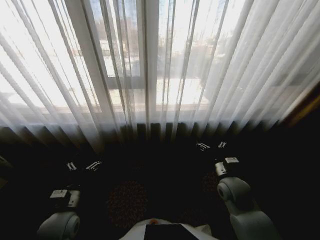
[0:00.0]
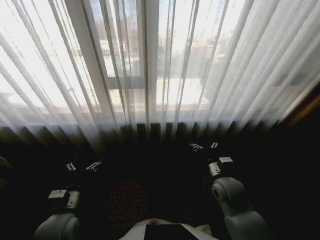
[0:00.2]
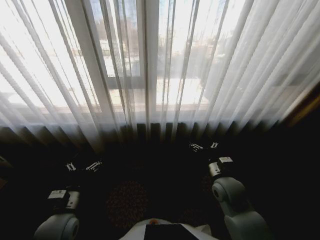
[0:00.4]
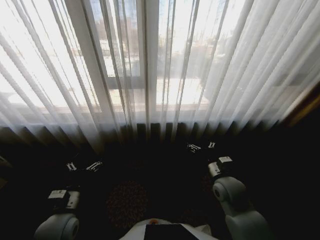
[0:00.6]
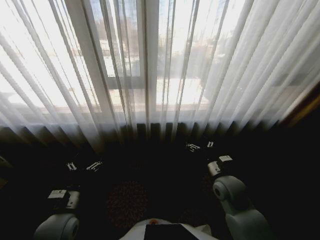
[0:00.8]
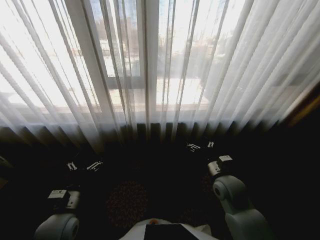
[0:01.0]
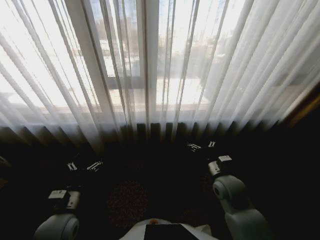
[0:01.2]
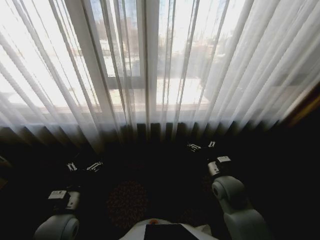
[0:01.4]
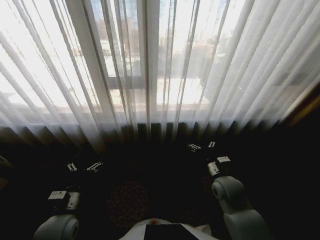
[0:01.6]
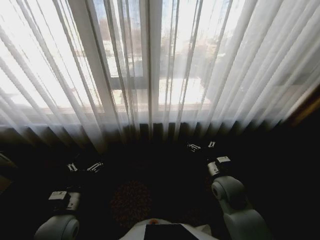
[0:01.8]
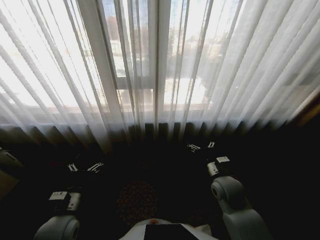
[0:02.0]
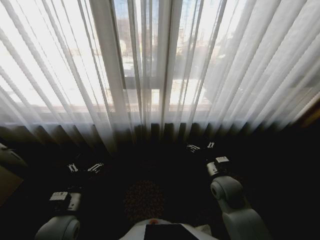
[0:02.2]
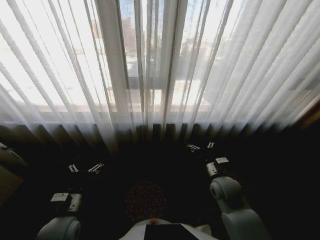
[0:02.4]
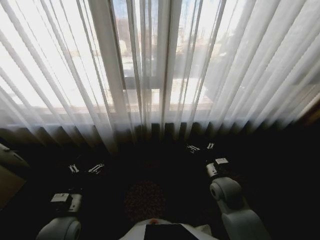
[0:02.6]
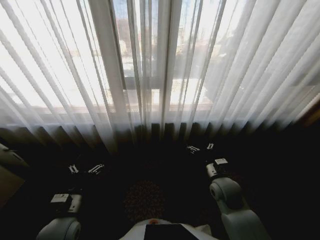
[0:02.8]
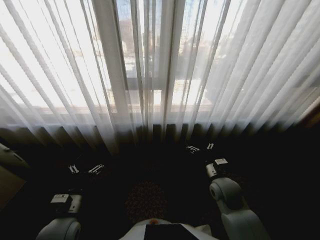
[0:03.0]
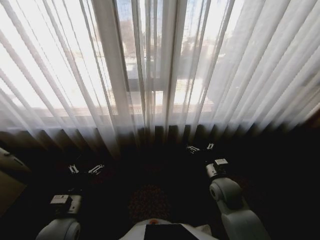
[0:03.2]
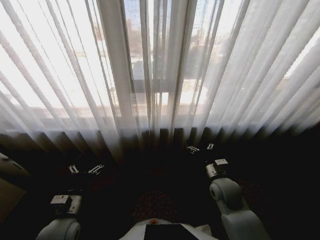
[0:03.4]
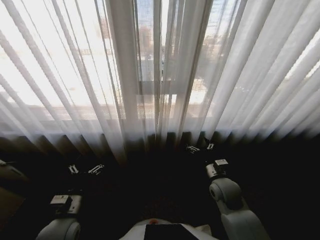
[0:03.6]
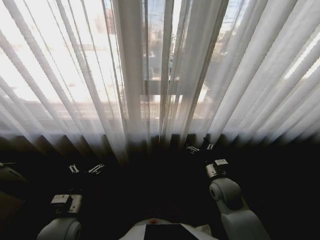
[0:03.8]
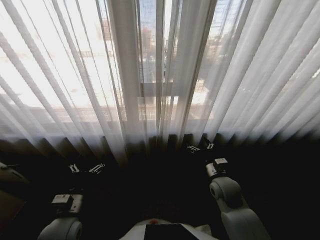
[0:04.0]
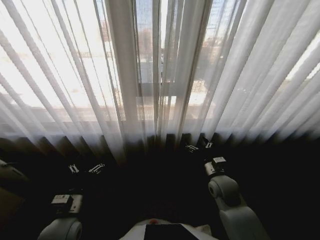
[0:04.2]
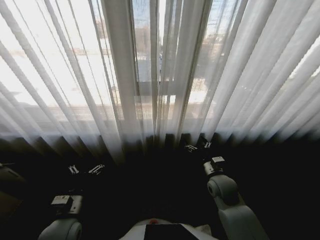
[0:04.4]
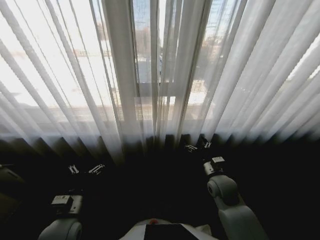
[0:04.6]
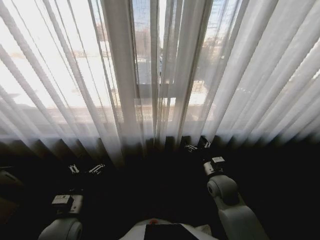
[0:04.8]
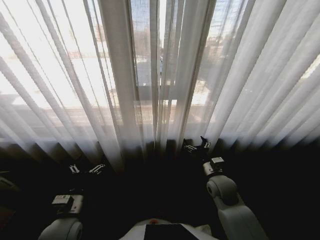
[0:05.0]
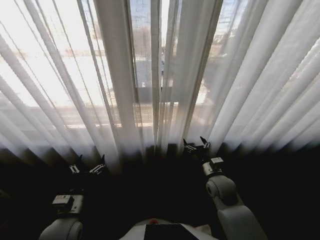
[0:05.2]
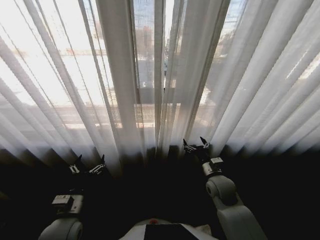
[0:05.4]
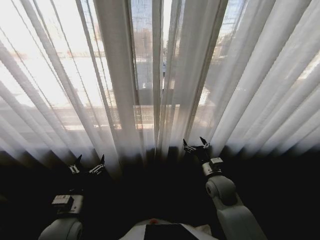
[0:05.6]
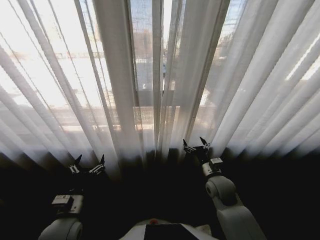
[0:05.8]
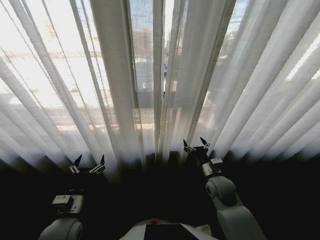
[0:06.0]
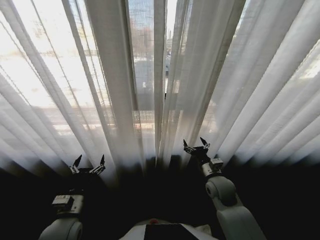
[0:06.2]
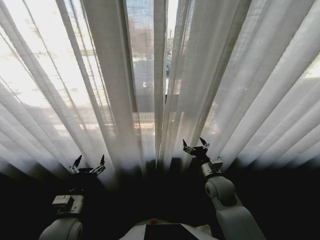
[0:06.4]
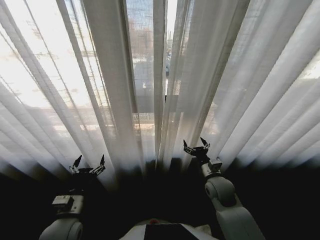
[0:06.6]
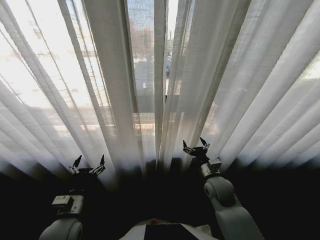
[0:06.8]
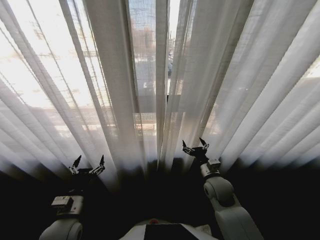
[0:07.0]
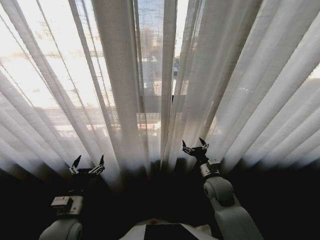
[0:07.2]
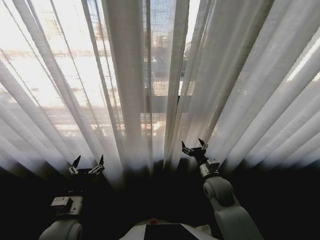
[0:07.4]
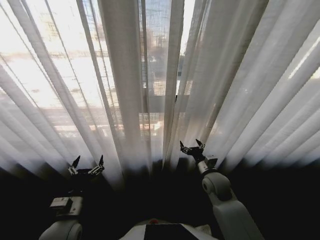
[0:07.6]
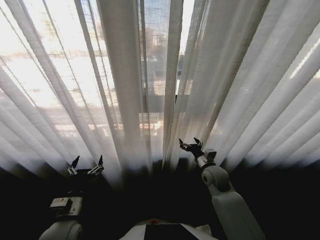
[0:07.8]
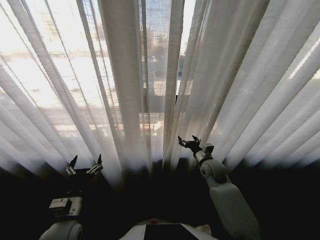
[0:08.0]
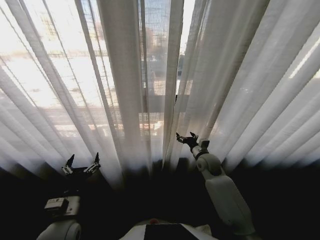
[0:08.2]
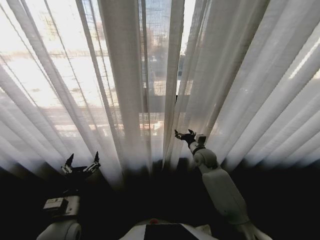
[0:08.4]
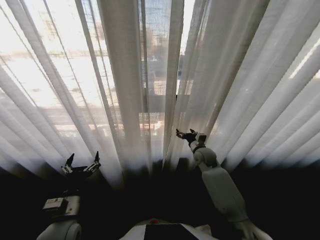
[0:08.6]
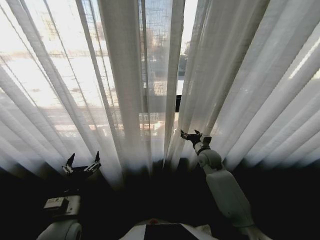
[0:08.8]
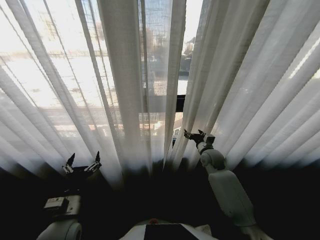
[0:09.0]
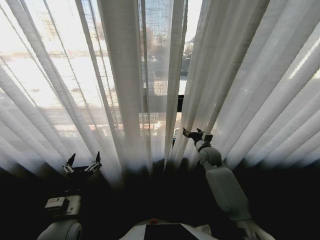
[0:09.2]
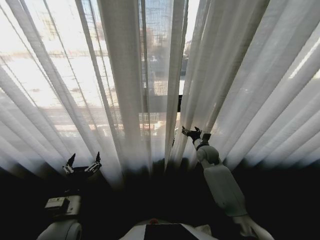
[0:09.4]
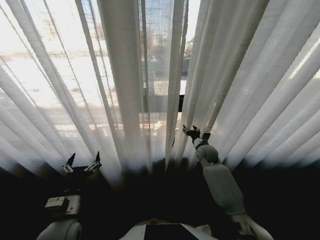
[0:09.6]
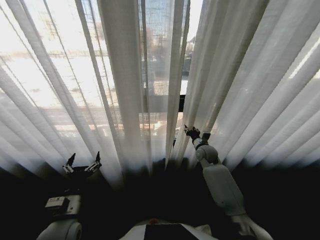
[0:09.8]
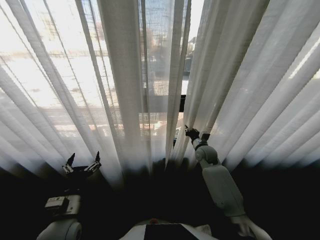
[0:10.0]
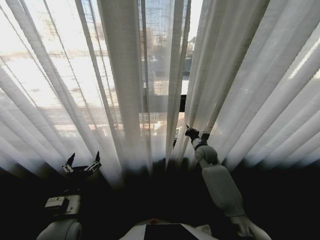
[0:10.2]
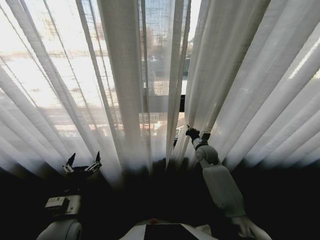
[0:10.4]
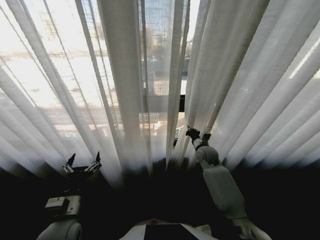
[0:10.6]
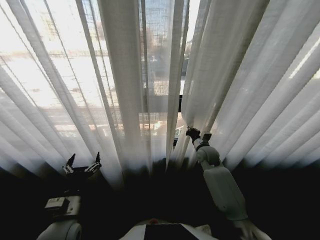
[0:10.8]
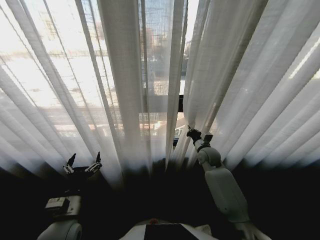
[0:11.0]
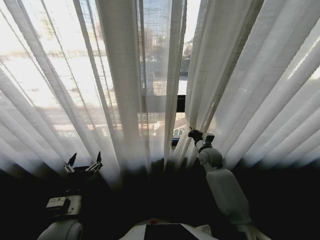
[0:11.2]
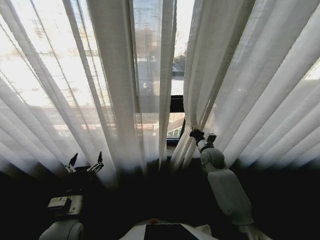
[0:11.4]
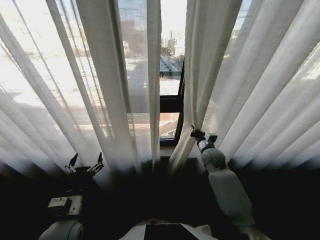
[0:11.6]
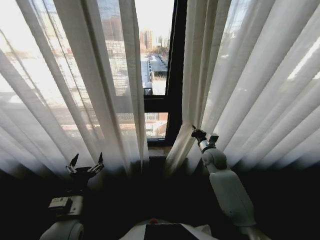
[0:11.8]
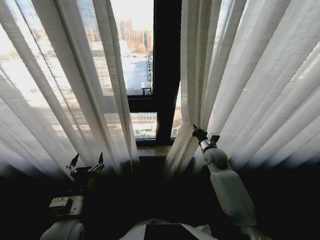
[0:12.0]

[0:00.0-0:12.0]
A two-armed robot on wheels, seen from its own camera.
Task of the whole recording: Open the curtains by pulling them apart, changing their state from closed to fully open.
0:07.6 to 0:09.0: The right gripper goes about 10 cm forward.
0:09.0 to 0:10.4: The right gripper closes its fingers.

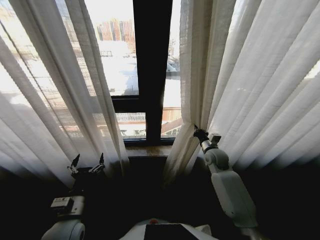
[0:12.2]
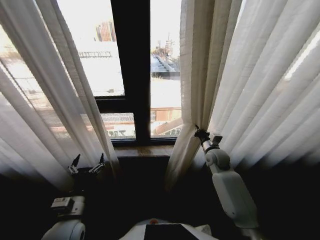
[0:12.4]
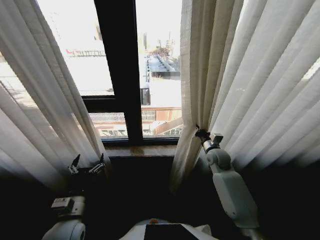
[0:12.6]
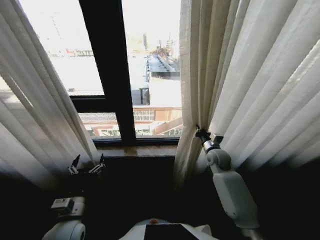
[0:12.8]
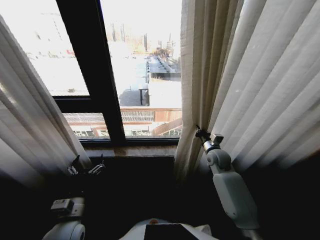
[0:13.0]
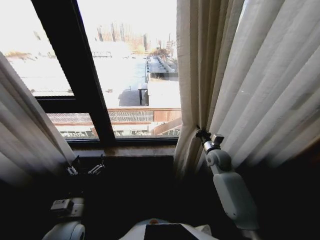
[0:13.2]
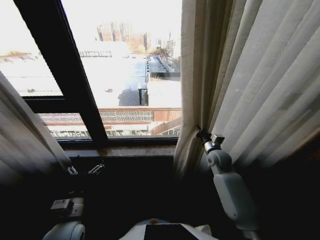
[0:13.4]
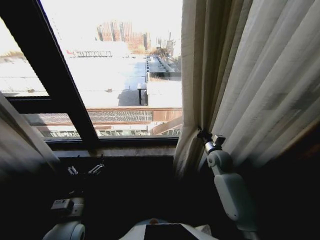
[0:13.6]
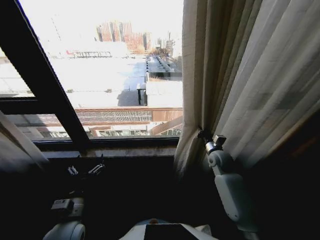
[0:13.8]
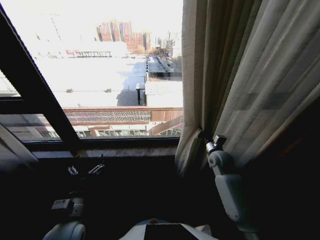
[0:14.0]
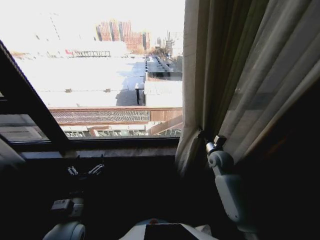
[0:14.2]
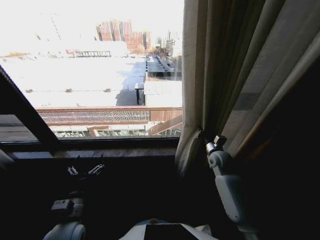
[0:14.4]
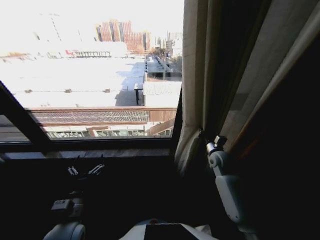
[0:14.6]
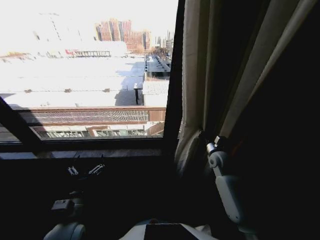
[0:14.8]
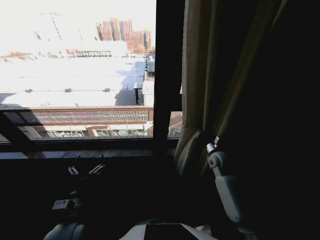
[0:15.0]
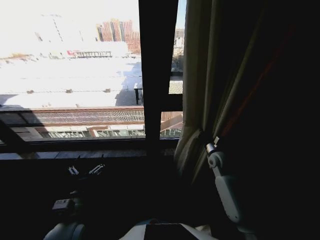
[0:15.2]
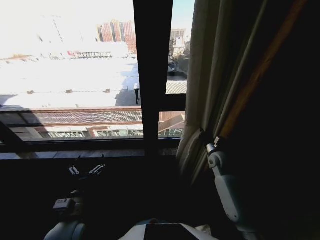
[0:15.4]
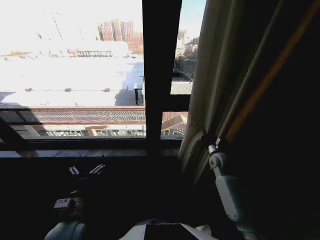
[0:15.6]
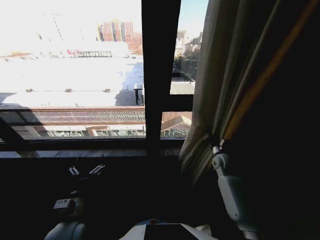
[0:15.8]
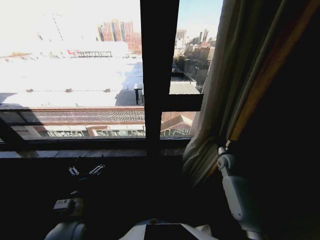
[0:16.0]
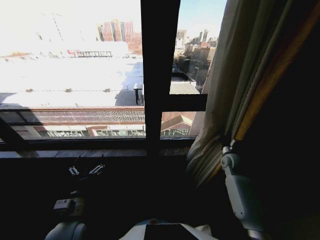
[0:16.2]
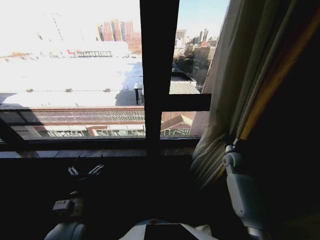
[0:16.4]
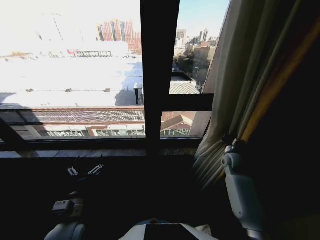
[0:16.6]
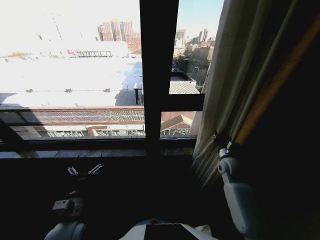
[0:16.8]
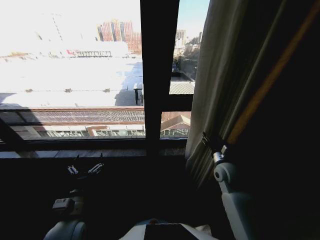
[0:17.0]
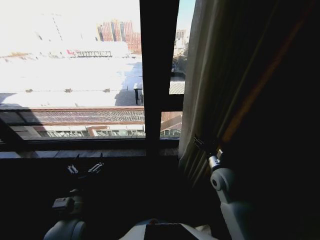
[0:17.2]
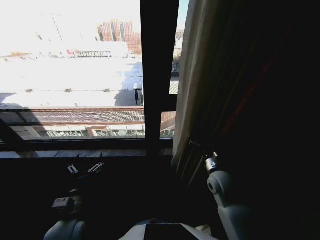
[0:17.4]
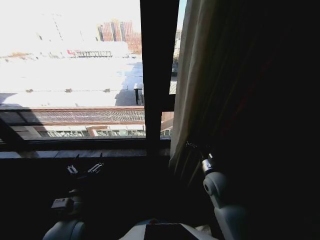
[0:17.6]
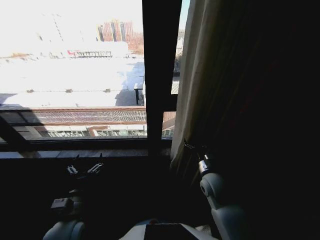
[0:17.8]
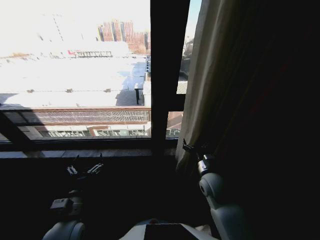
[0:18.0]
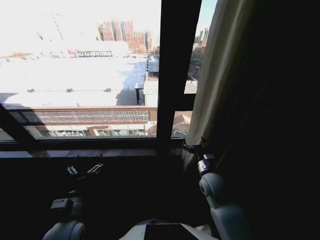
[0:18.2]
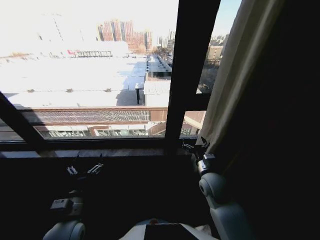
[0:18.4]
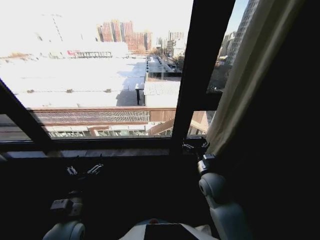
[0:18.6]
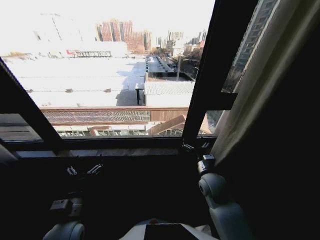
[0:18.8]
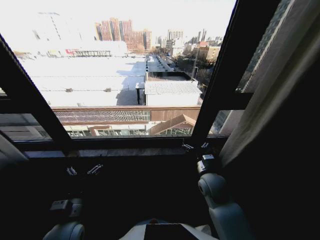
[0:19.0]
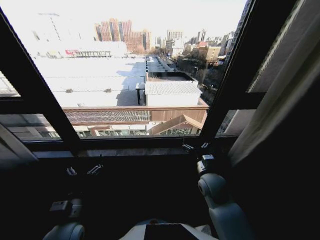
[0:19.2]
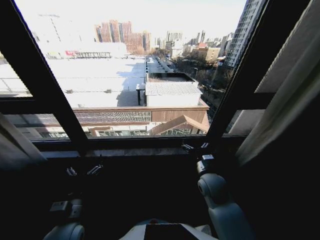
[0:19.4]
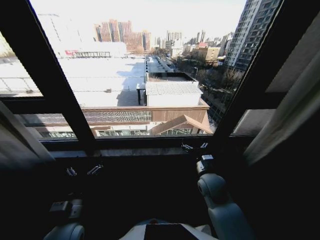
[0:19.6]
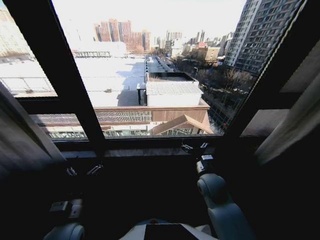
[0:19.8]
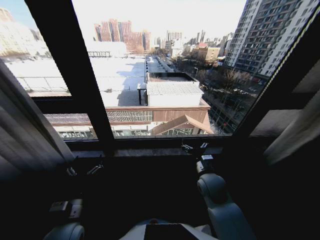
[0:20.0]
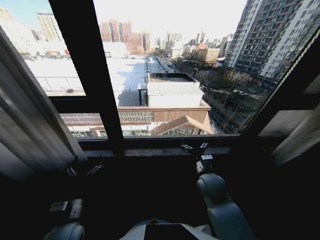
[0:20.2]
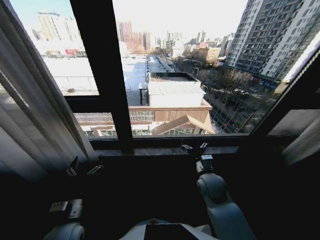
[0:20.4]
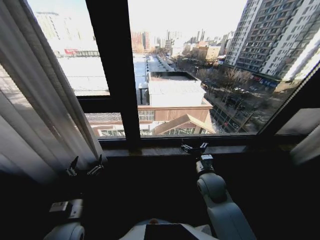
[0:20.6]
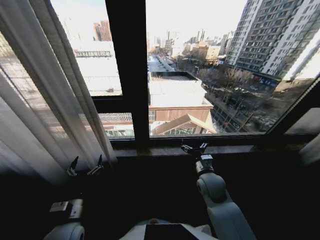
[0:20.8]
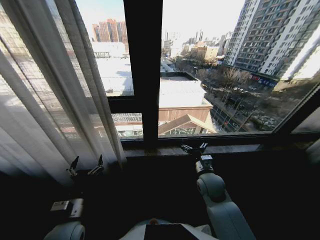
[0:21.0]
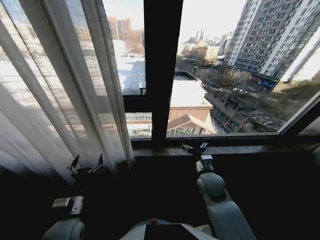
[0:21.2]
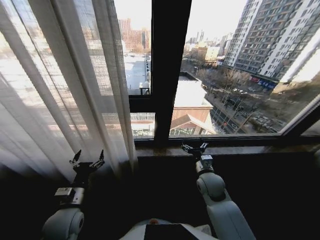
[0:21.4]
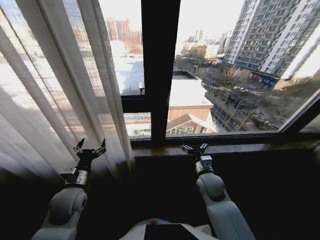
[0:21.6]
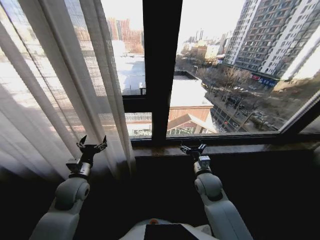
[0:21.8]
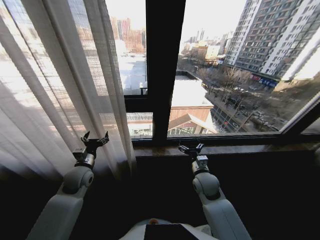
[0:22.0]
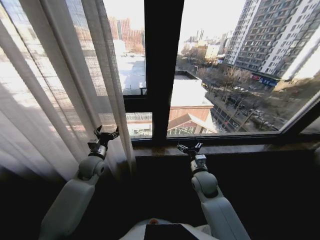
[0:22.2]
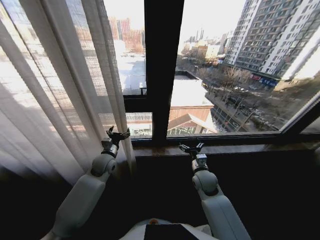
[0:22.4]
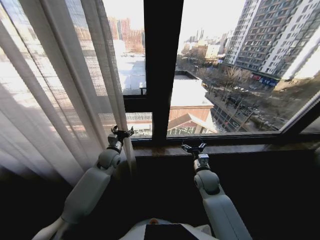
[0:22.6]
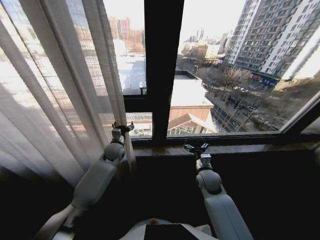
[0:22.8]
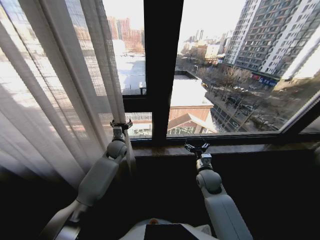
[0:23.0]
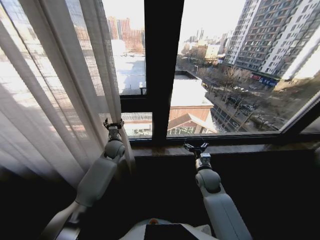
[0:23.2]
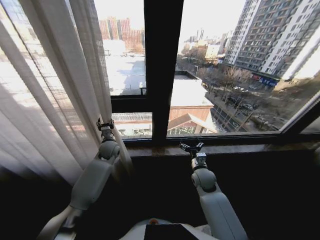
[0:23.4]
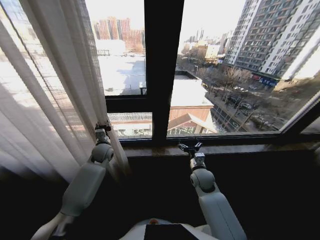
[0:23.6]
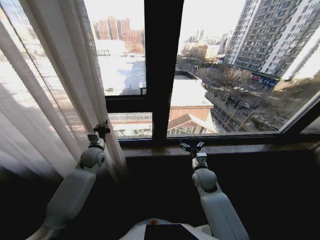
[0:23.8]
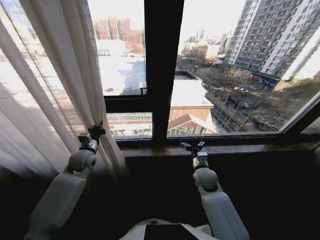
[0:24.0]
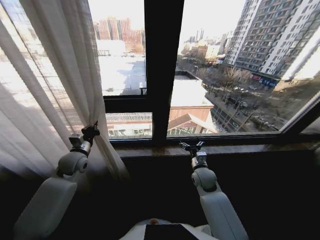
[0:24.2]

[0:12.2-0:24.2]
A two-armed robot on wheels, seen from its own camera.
Task of the whole recording: Open the curtains by pulling them apart, changing their state from closed to fully open.
0:15.2 to 0:16.6: The right gripper is displaced to the right by about 10 cm.
0:16.6 to 0:18.2: The right gripper is displaced to the left and backward by approximately 20 cm, and opens its fingers.
0:21.2 to 0:22.6: The left gripper moves forward, approximately 25 cm.
0:22.6 to 0:24.2: The left gripper moves to the left and upward, about 15 cm, and closes.
